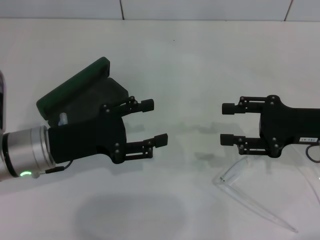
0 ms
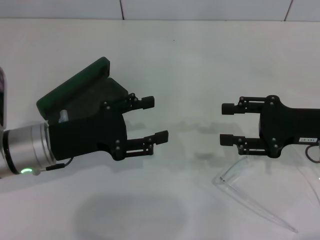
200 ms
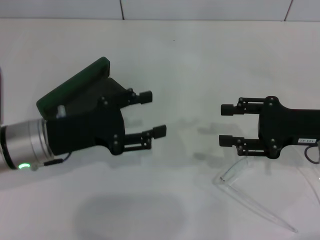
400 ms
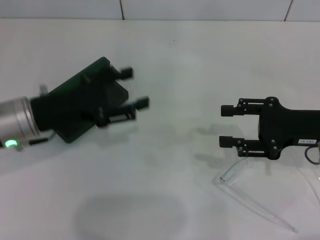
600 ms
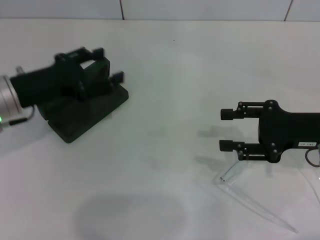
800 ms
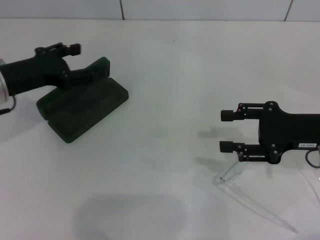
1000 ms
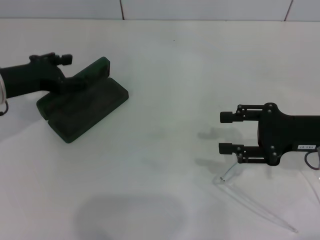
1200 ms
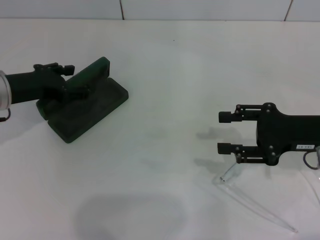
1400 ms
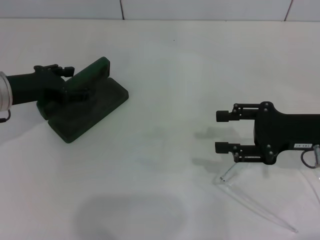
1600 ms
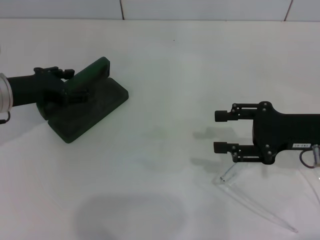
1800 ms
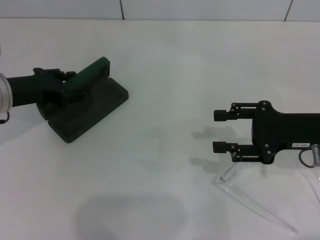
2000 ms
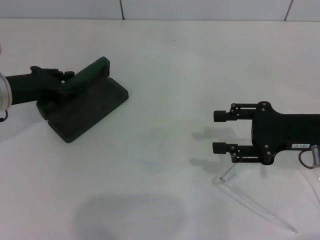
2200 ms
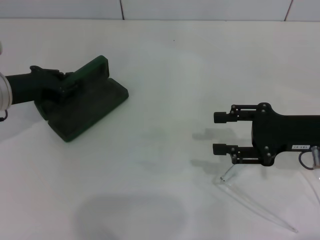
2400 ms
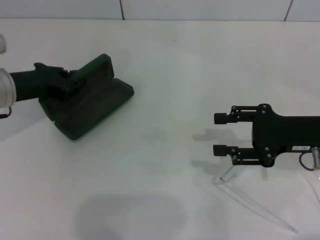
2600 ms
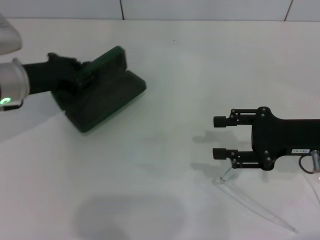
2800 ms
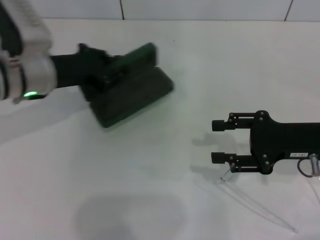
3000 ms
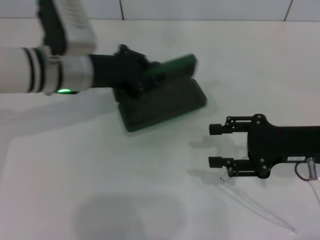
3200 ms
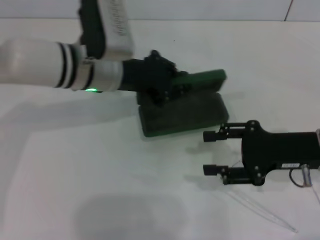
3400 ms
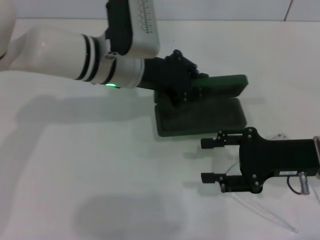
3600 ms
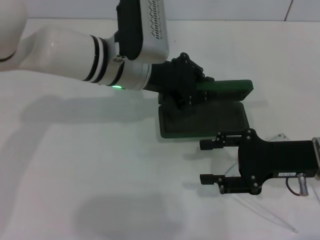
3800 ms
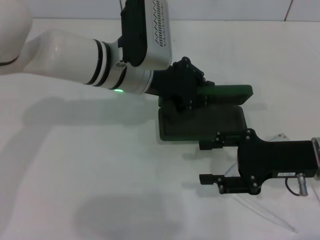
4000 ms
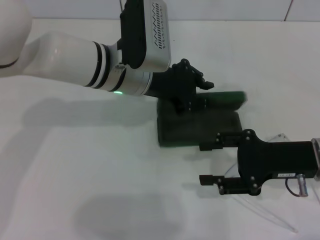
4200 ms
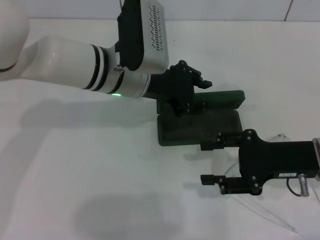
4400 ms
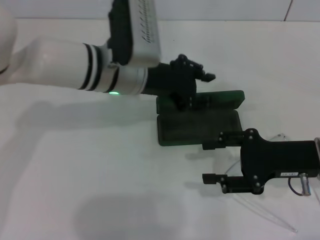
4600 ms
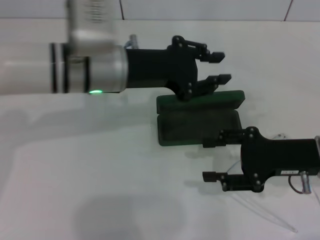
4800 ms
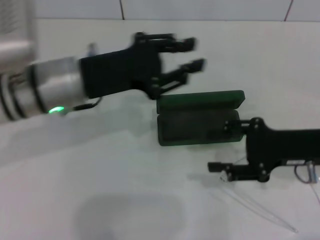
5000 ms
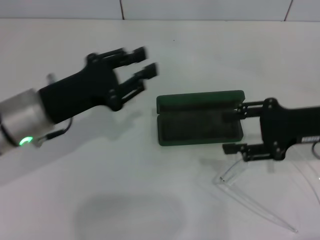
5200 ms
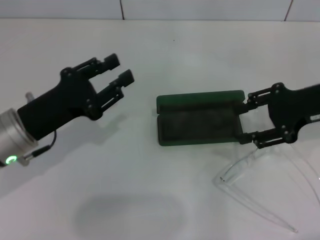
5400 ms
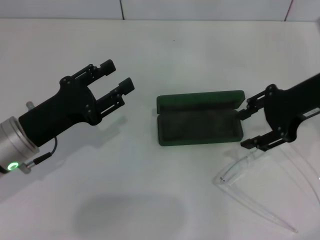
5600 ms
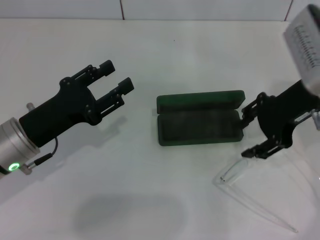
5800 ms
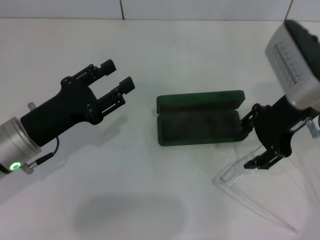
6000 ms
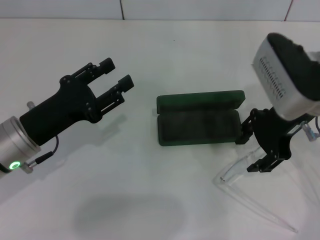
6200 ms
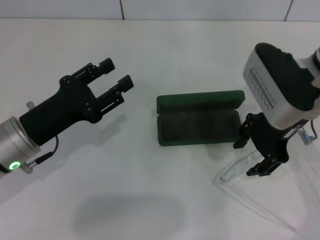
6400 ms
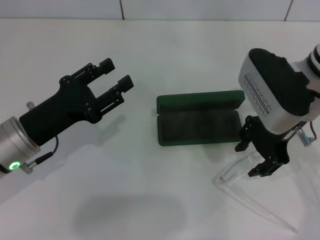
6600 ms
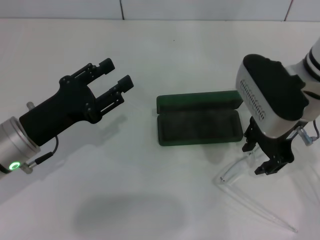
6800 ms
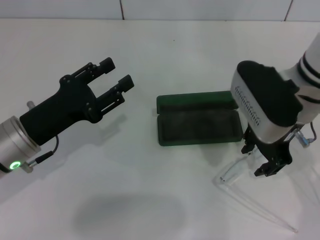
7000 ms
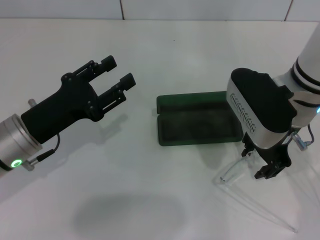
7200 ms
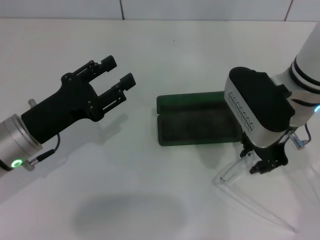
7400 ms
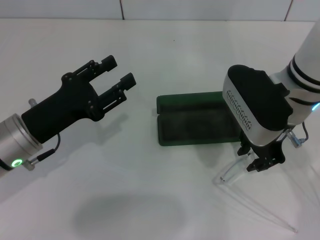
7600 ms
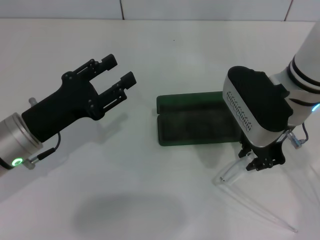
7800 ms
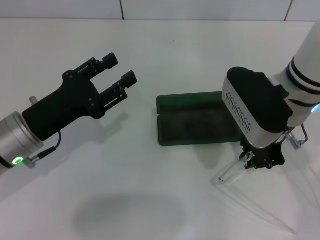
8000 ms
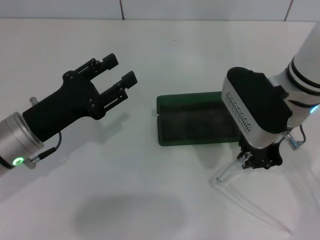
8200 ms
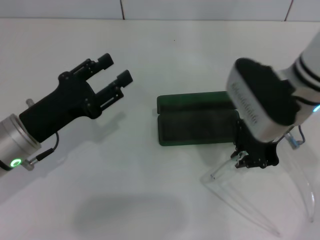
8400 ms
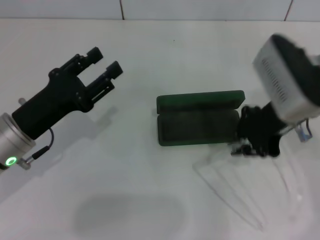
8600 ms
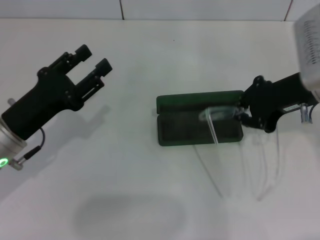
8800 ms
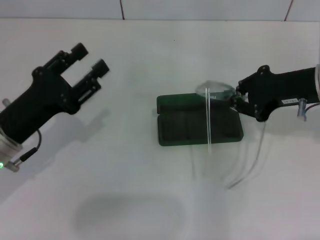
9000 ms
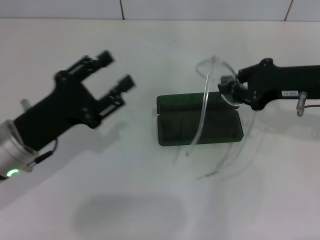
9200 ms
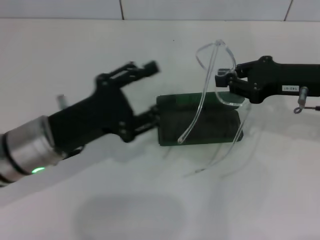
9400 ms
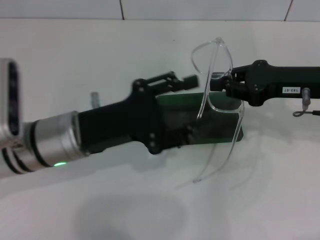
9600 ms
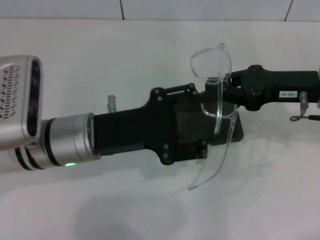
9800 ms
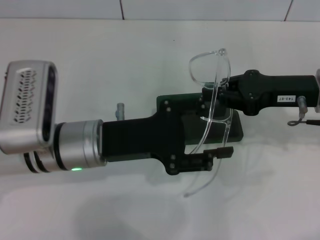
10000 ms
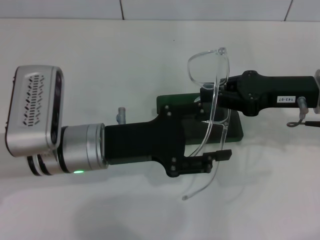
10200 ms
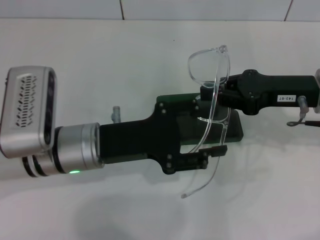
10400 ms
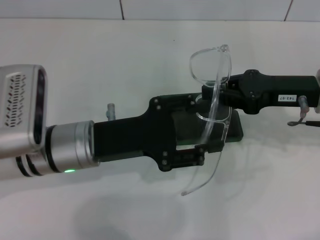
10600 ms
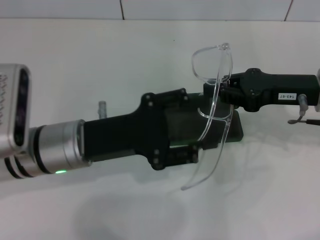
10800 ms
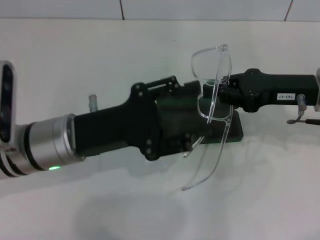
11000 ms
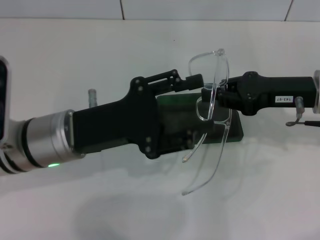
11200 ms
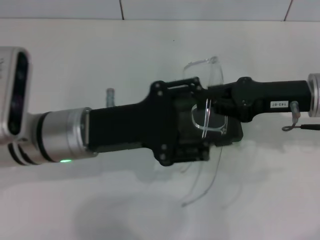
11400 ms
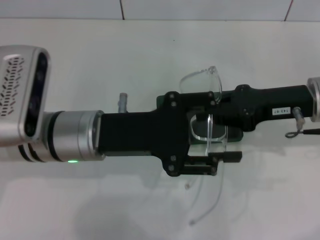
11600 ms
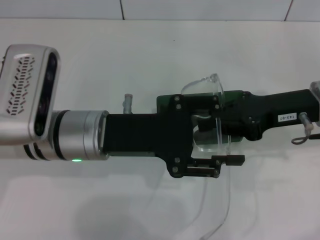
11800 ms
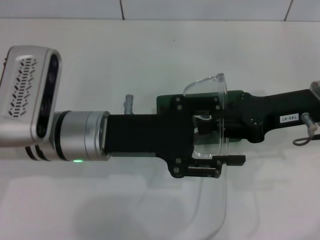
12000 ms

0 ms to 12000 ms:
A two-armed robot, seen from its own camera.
Step, 0 ms to 2400 ms: Grab the glasses case with your left hand.
Step, 2600 ms to 4200 ms: Place the glasses case in the center of the table with your left hand.
Step, 4400 ms to 7800 ms: Grab the eyeglass frame with your right hand.
0 ms to 1600 ms: The left gripper goes roughly 10 cm forward and to the left.
1600 ms to 3000 ms: The left gripper shifts some 5 cm to the right, and closes its fingers.
3000 ms to 4400 ms: The left gripper shifts approximately 10 cm to the right.
4400 ms to 6000 ms: The left gripper travels to the left, backward and downward by about 20 cm, and opens its fingers. The right gripper goes some 15 cm upward and forward.
6000 ms to 7600 ms: The right gripper ends up some 5 cm from where it was, and closes.
7600 ms to 9000 ms: The right gripper moves to the right, about 10 cm, and closes.
9000 ms to 10400 ms: The left gripper moves to the right, roughly 10 cm.

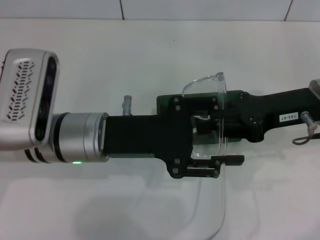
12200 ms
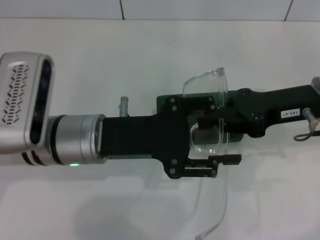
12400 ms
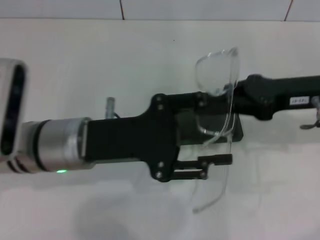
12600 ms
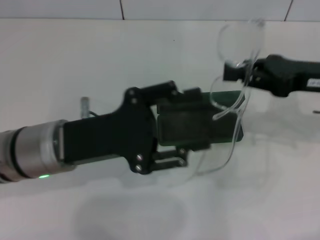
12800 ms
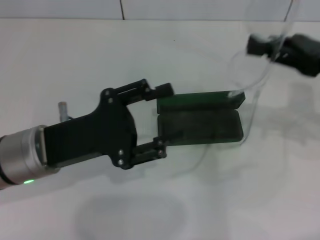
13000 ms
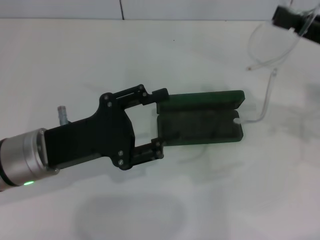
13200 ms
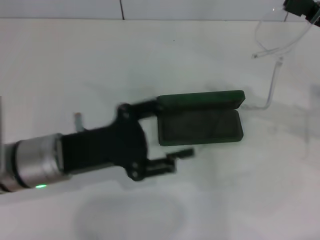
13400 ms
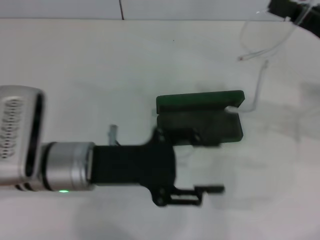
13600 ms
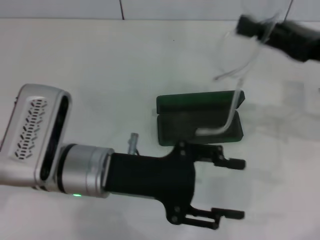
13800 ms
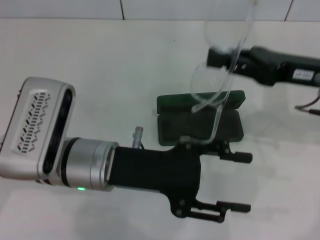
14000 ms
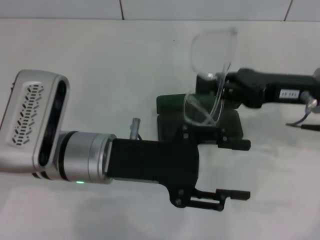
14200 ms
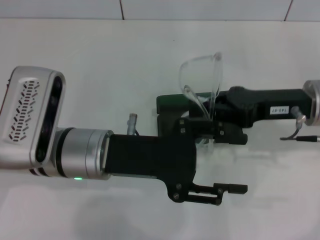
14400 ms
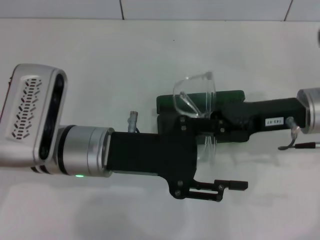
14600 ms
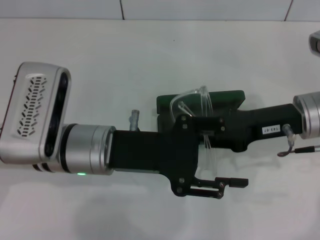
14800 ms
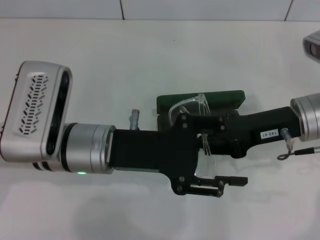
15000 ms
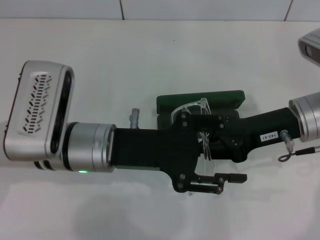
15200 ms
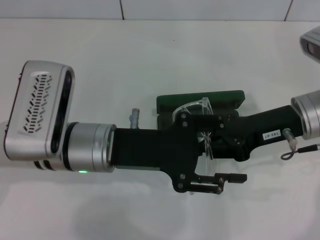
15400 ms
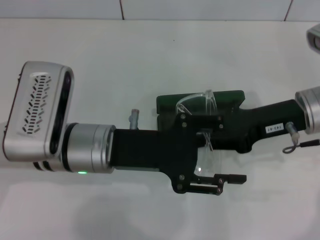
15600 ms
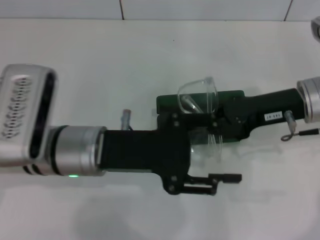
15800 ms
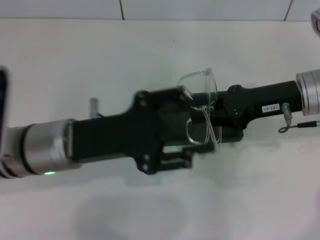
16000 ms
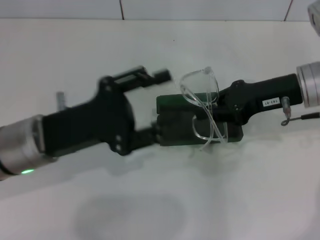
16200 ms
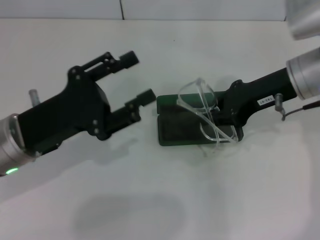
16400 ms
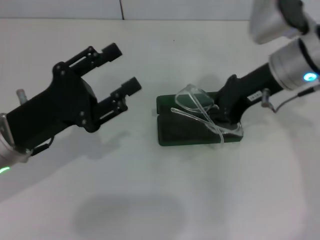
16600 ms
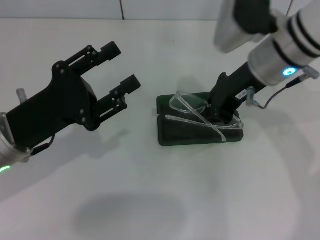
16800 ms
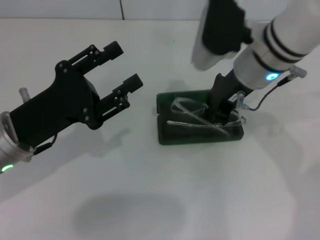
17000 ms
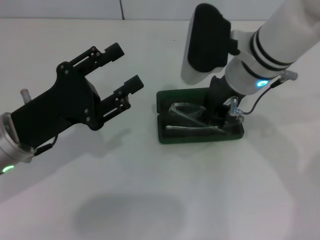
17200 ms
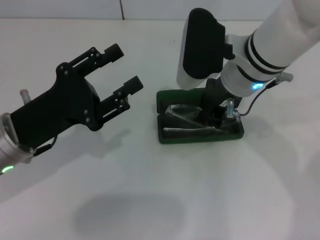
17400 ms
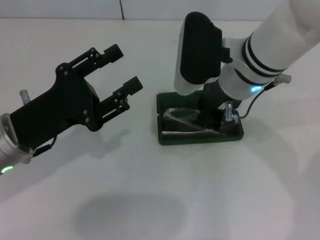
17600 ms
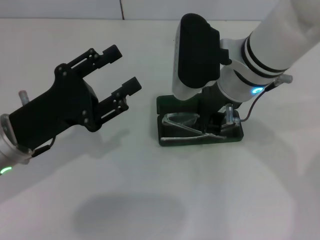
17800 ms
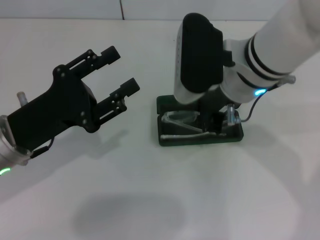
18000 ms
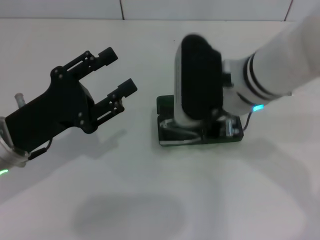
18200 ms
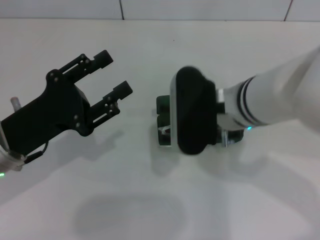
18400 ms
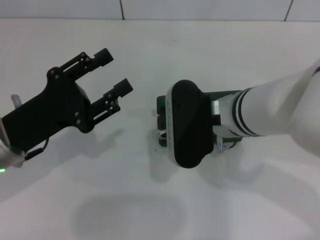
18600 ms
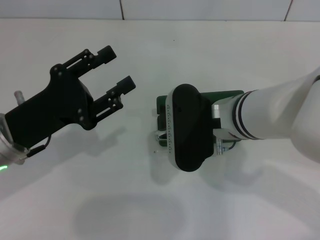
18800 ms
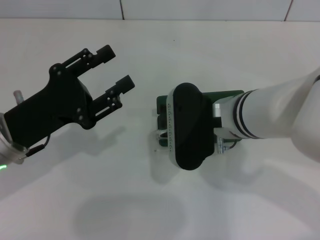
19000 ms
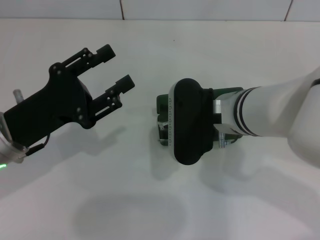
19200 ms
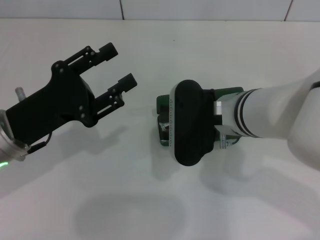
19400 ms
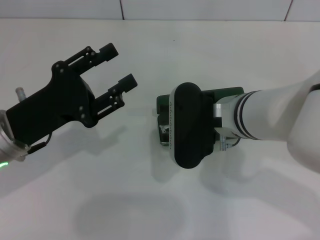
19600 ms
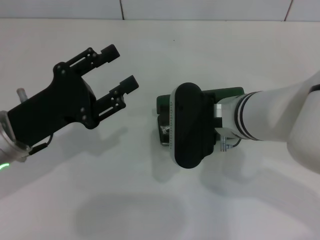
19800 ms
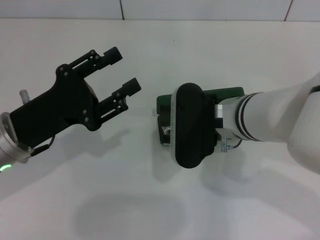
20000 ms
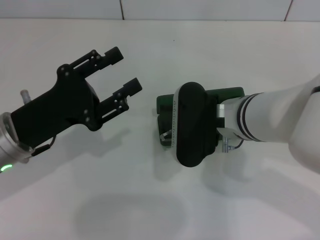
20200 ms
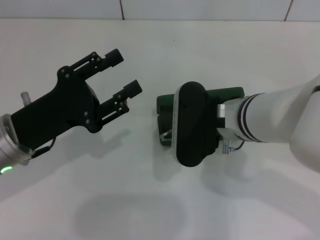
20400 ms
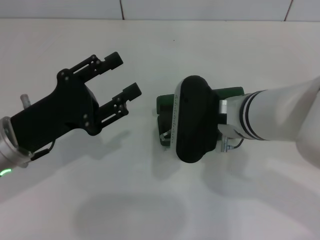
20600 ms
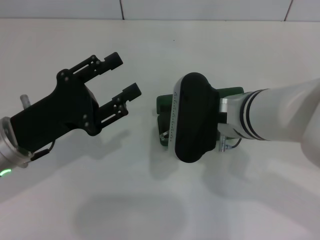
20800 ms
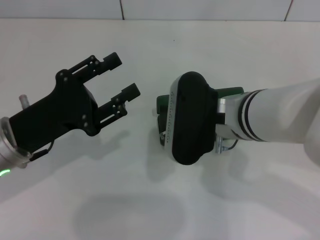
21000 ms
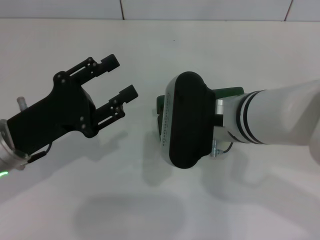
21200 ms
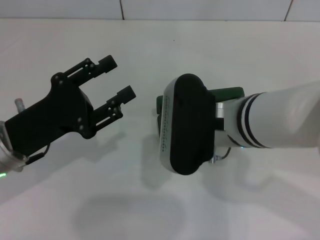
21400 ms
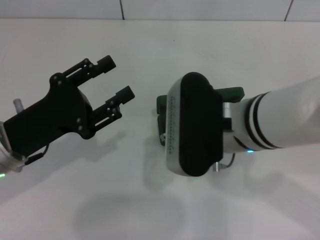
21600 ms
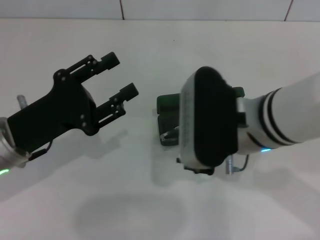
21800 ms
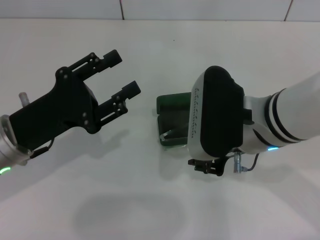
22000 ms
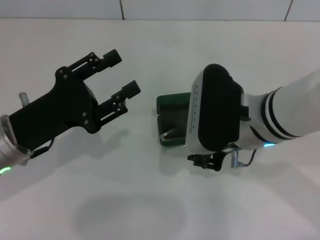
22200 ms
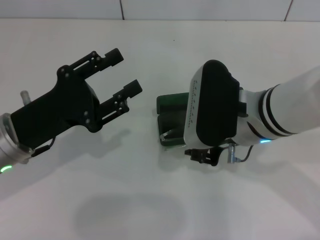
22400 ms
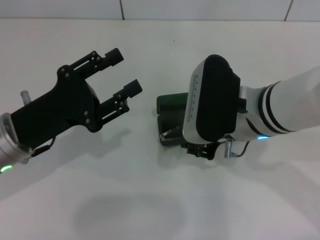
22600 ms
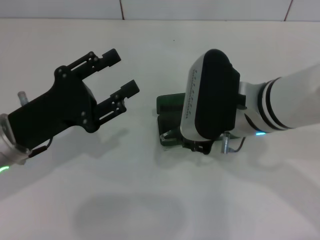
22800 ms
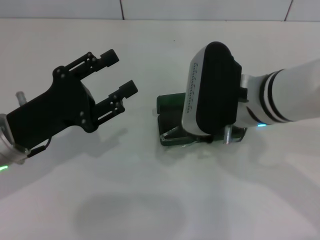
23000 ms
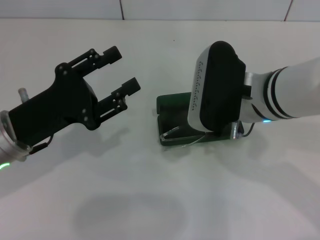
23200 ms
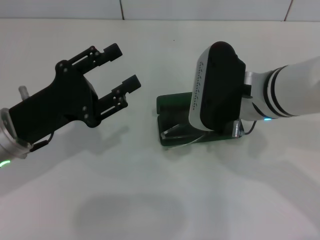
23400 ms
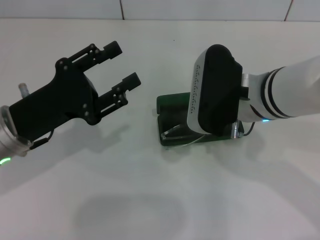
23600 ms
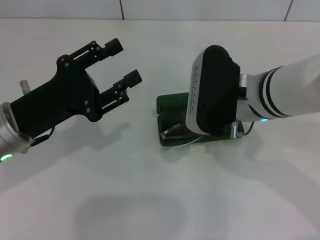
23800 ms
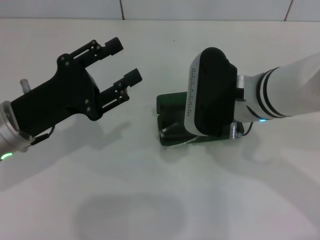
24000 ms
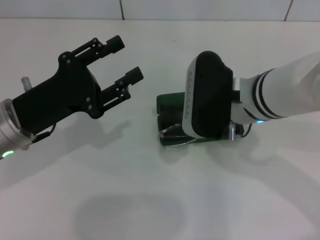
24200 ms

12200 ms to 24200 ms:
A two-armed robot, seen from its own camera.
Step, 12200 ms to 15400 ms: Fold the frame with your left hand.
Step, 15800 ms to 21600 ms: Put the glasses into the case with your right hand.
13800 ms to 15200 ms: The right gripper goes roughly 5 cm to the left.
15200 ms to 16600 ms: The right gripper shifts approximately 5 cm upward, while the left gripper moves to the left, roughly 10 cm.
16600 ms to 18200 ms: The right gripper is displaced to the left by roughly 10 cm.
19800 ms to 21200 ms: The grippers make only small movements.
21200 ms to 24200 ms: The grippers stay close to where they were, moving slightly.
